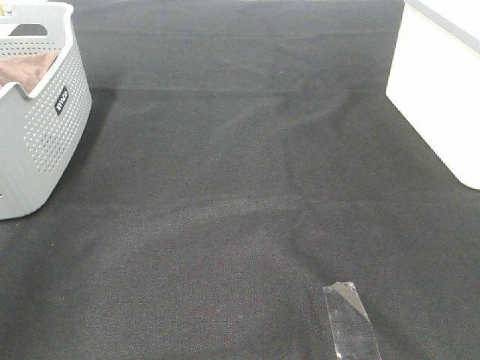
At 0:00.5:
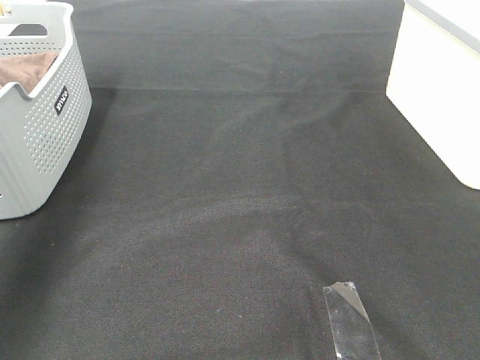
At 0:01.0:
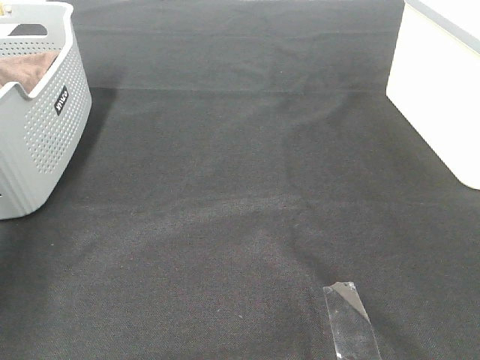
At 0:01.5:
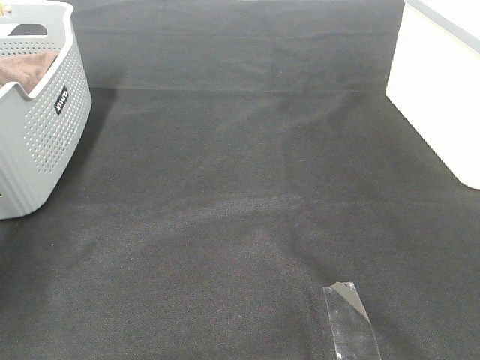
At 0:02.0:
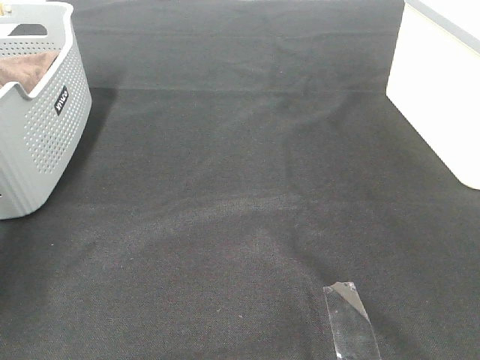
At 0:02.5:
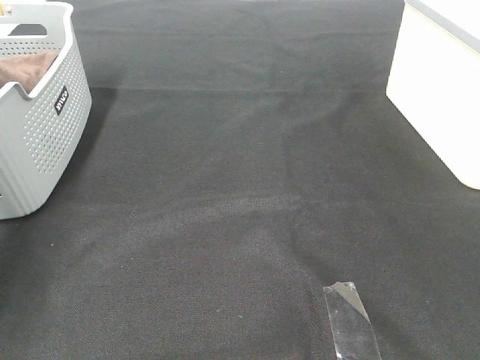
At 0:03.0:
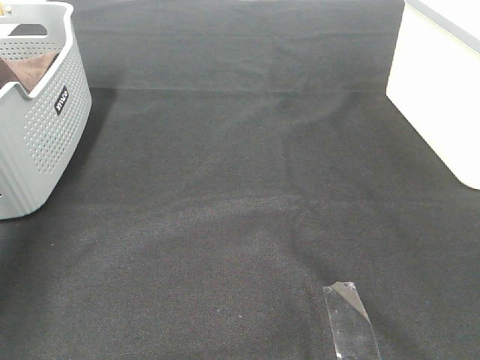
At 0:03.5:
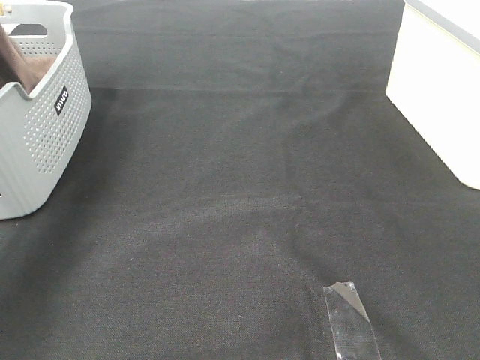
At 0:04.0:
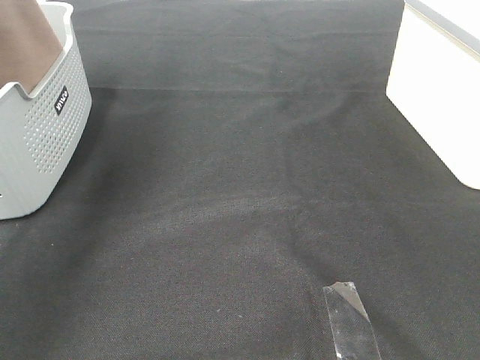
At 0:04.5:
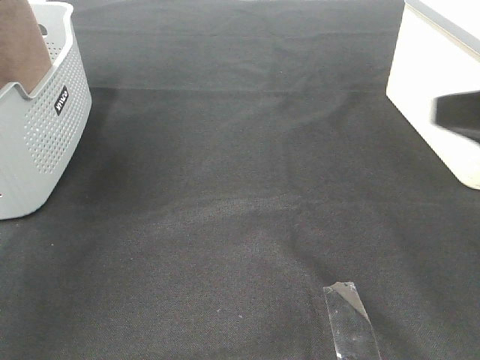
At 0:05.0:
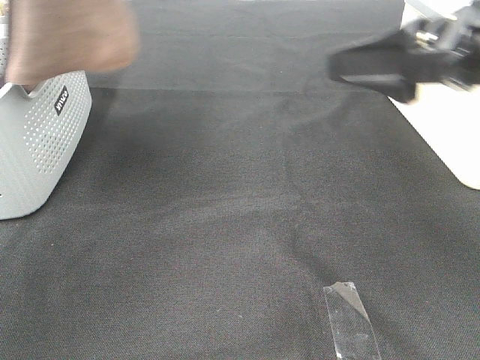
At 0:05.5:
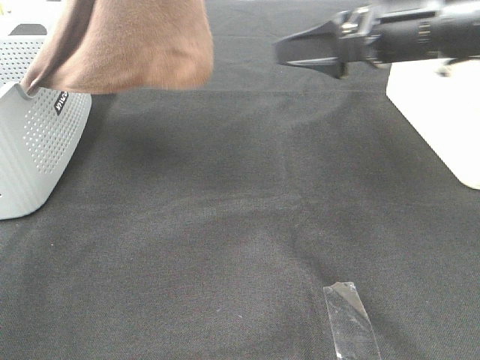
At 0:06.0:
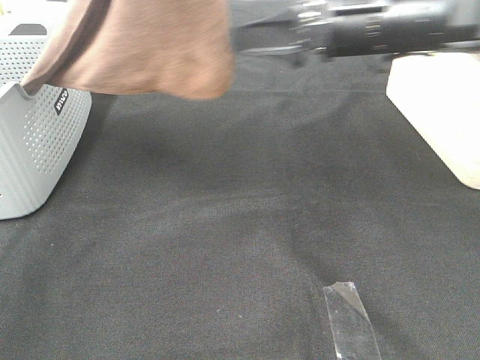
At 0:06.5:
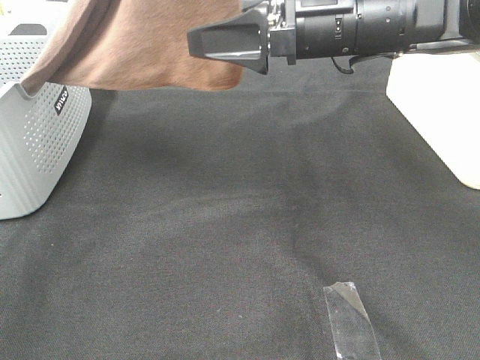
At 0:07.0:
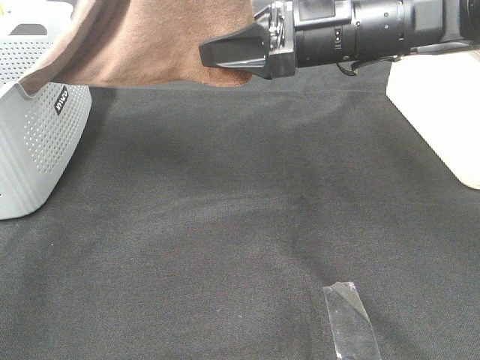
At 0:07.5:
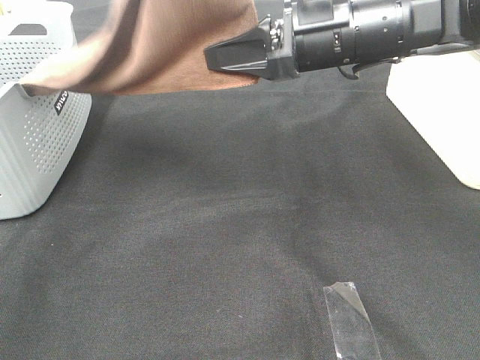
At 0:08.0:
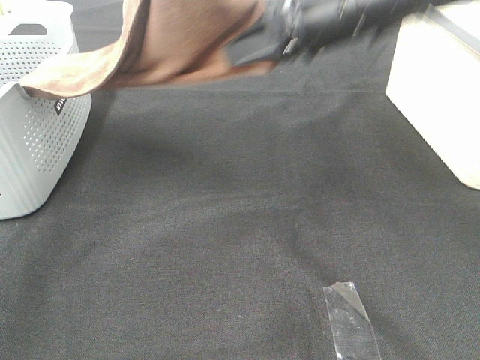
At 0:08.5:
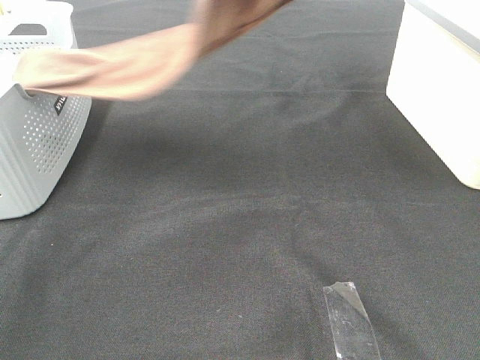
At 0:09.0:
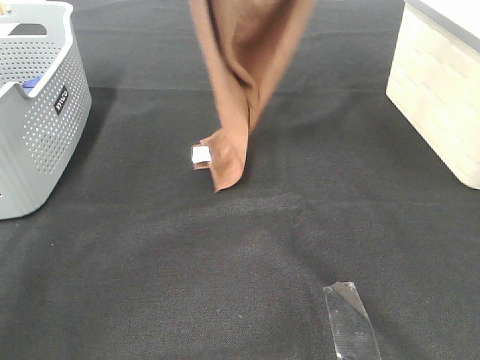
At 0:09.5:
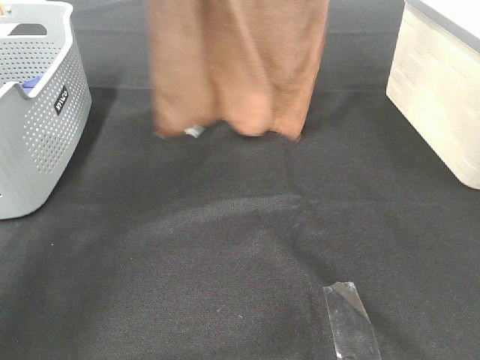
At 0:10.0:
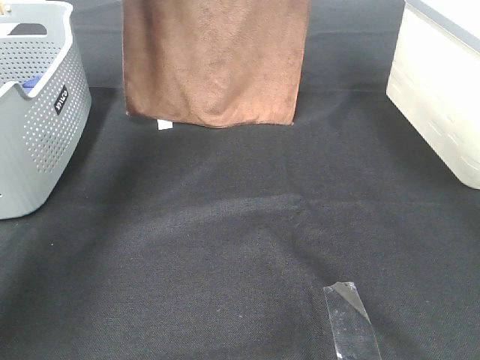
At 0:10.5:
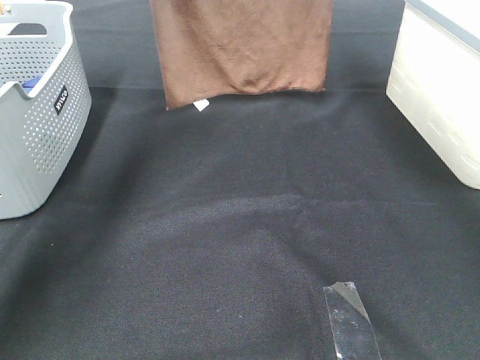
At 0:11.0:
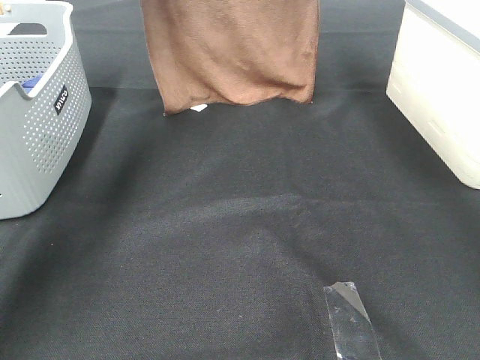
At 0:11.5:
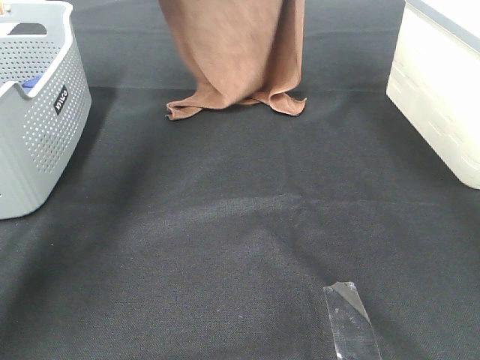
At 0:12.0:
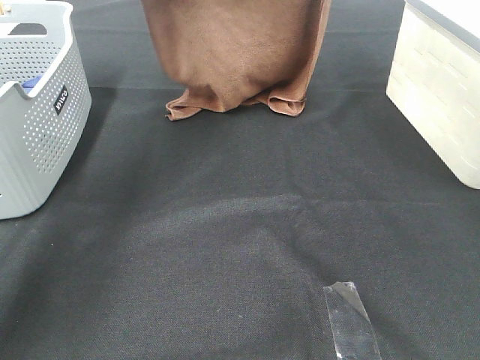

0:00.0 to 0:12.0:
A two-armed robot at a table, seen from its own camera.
Task of the whole recording: Remove the towel and place it.
Step, 0:04.0 to 0:07.5: Right hand: grab a corner of the brown towel and straighten it.
0:00.0 to 0:02.0: The left gripper moves forward and downward, roughly 40 cm, and closes up.
0:02.0 to 0:04.0: The left gripper is displaced upward and to the right by roughly 30 cm.
0:04.0 to 0:06.0: The right gripper shifts about 35 cm forward and to the left, while the left gripper travels to the right by some 15 cm.
0:06.0 to 0:08.0: The right gripper heads upward, covering some 5 cm, and closes its fingers.
0:08.0 to 0:10.0: The left gripper travels forward by roughly 20 cm, while the right gripper travels upward and forward by roughly 20 cm.
0:10.0 to 0:12.0: The right gripper changes place by approximately 5 cm.

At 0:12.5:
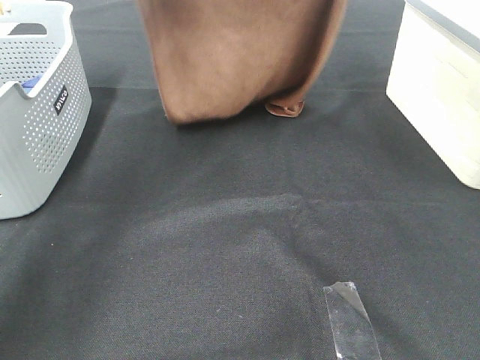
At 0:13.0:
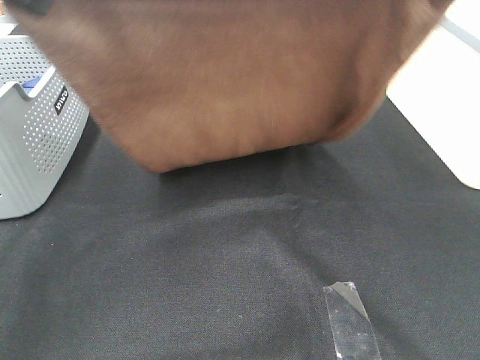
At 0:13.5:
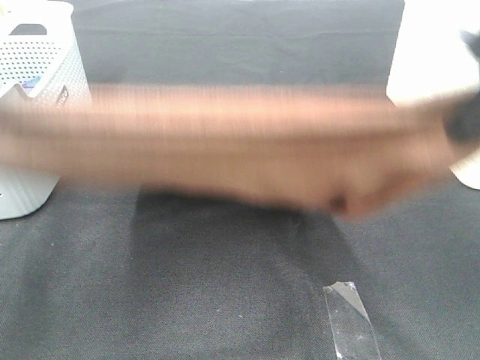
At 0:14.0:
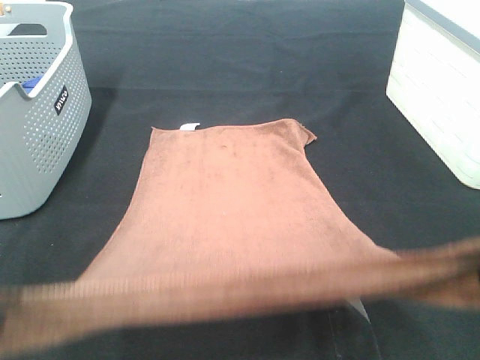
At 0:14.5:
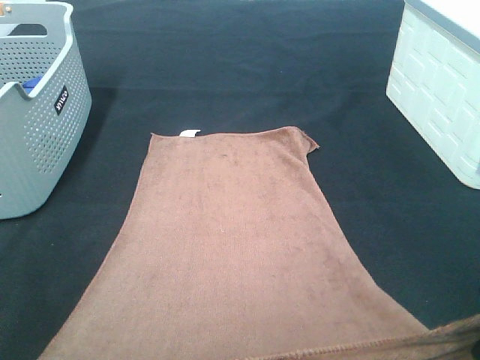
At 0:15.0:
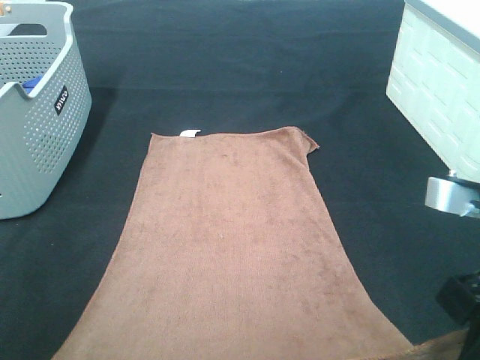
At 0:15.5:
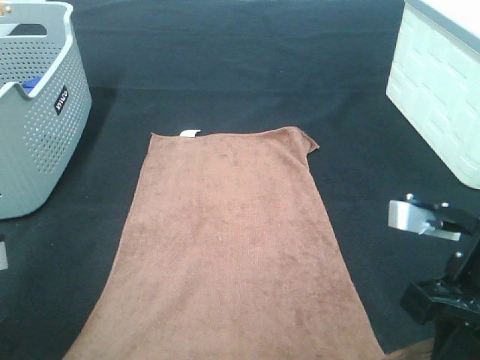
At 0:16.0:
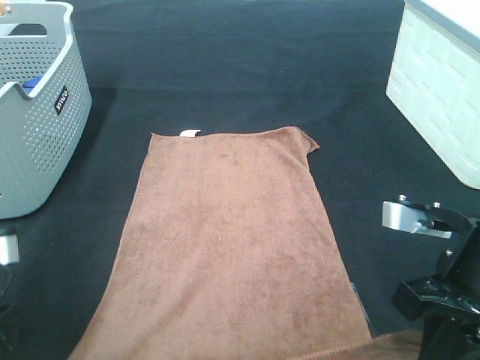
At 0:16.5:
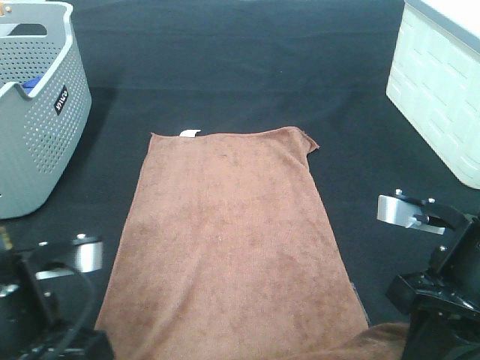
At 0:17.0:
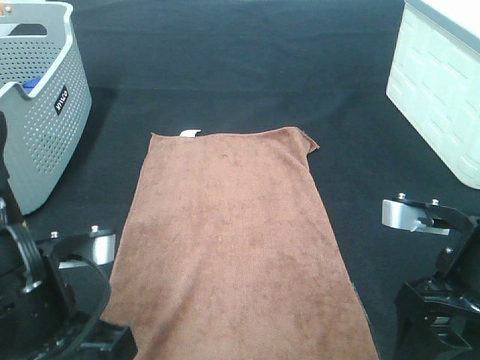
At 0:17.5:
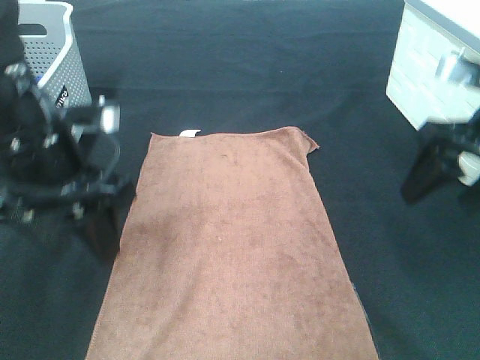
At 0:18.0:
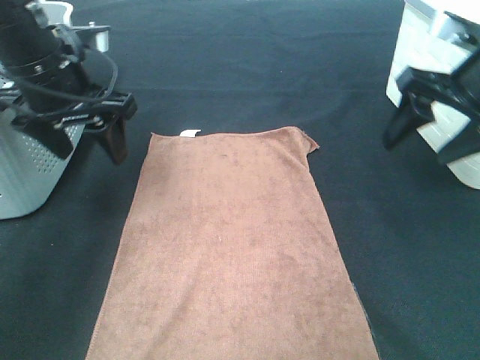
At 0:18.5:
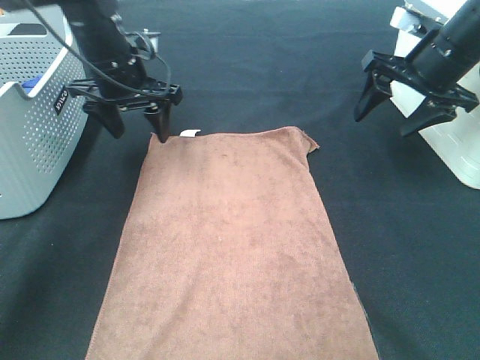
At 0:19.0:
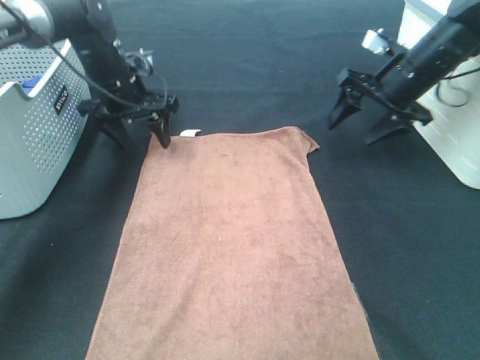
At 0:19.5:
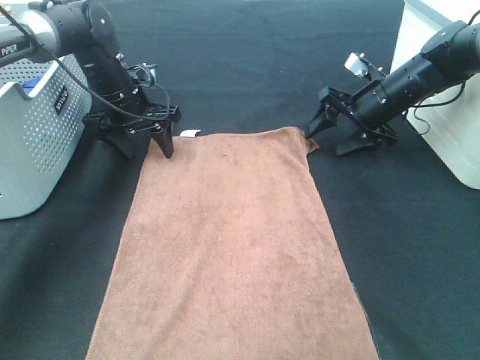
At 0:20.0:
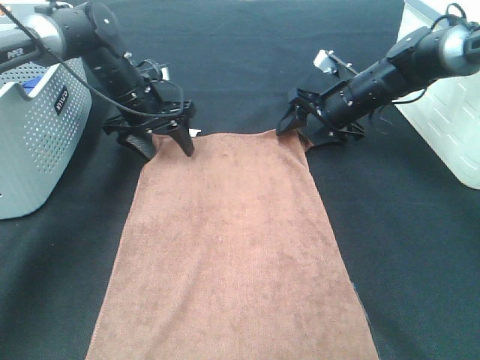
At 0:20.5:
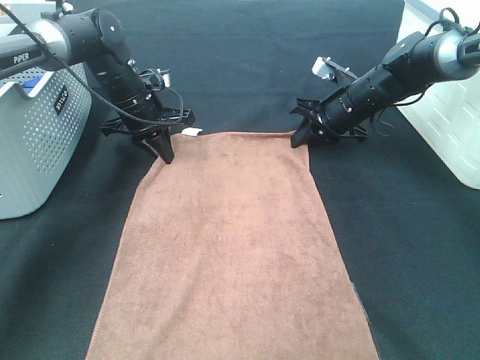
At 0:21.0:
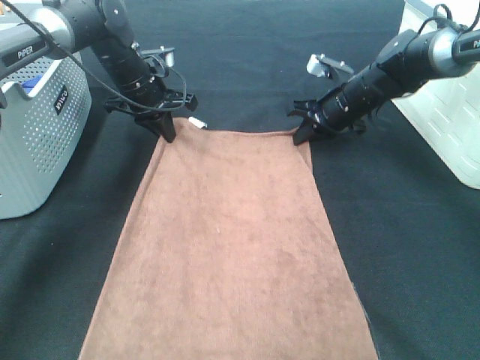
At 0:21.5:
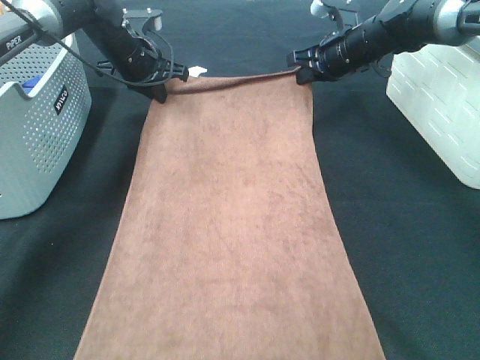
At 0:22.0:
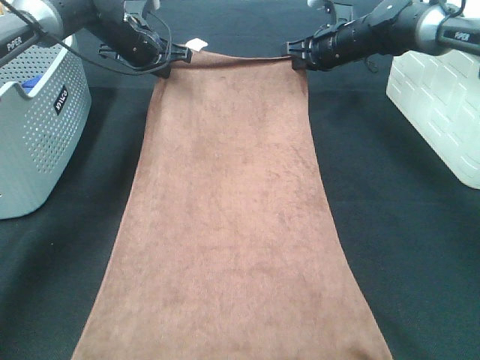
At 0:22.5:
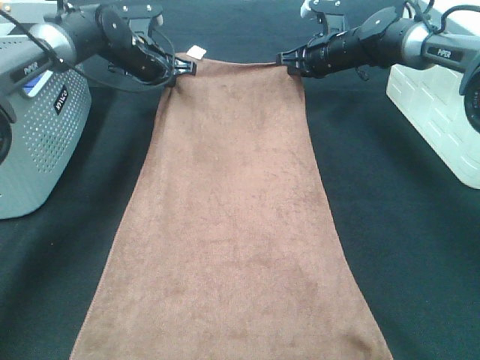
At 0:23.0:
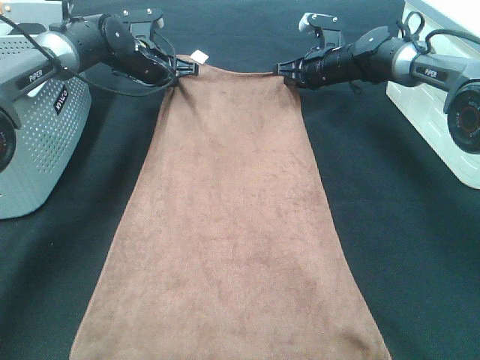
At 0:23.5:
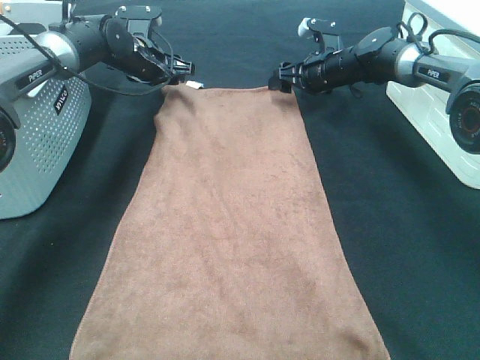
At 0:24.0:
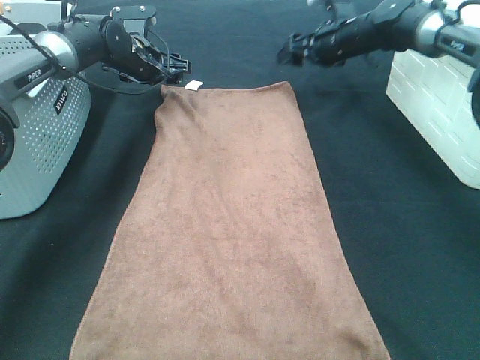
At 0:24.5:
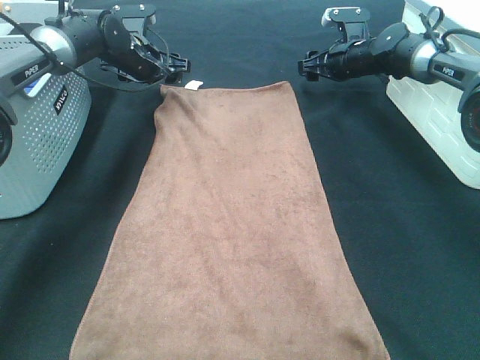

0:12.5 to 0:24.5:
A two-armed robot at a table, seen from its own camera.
Task of the whole recording: Remove the towel and place it.
Step, 0:13.0 to 0:18.0: Left hand:adjust the brown towel.
Step, 0:13.0 to 0:18.0: Right hand:adjust the brown towel.
0:12.5 to 0:14.5: The two grippers go approximately 35 cm backward and downward.
0:14.5 to 0:16.5: The left gripper moves to the right, downward and forward, approximately 10 cm. Meanwhile the right gripper moves downward and forward, about 10 cm.
0:16.5 to 0:18.5: Both grippers move forward, approximately 30 cm. The right gripper opens. Meanwhile the left gripper opens up.
0:18.5 to 0:20.5: The right gripper shifts roughly 15 cm downward, forward and to the left, and closes up; the left gripper is displaced downward by about 10 cm, and closes.
0:20.5 to 0:22.5: Both grippers move forward, roughly 10 cm.
0:22.5 to 0:24.5: The right gripper moves roughly 5 cm, and opens. The left gripper opens up.

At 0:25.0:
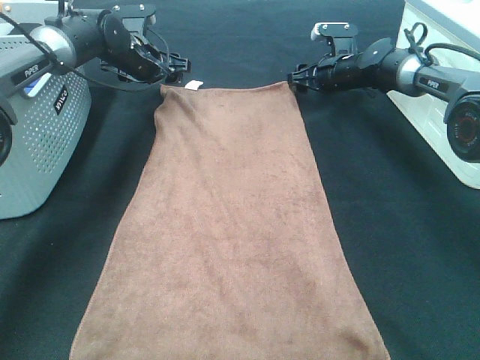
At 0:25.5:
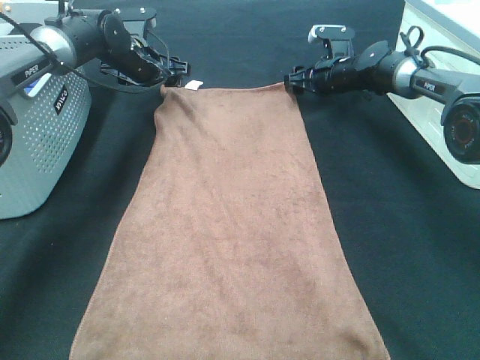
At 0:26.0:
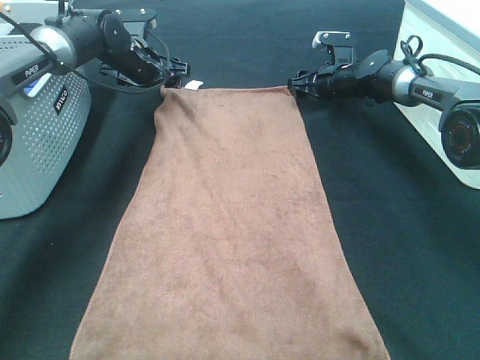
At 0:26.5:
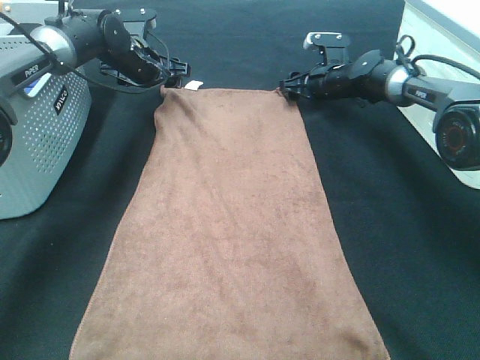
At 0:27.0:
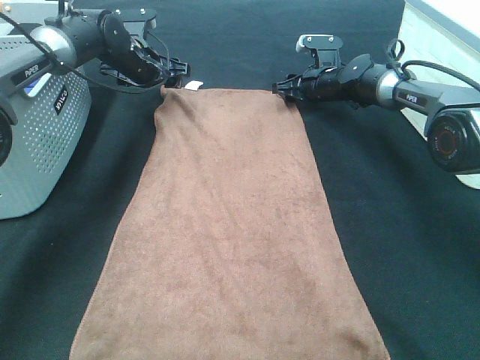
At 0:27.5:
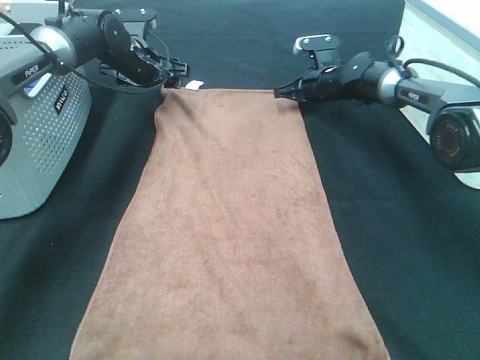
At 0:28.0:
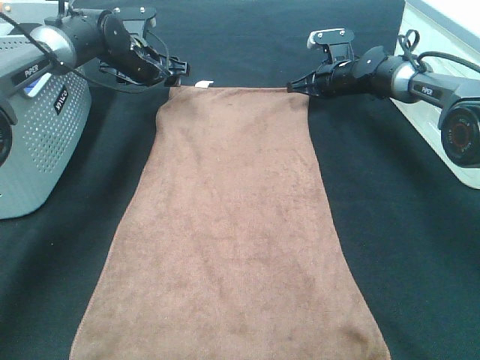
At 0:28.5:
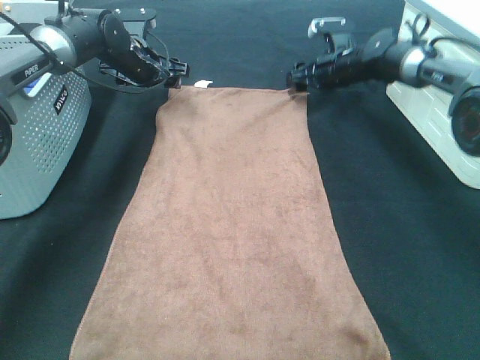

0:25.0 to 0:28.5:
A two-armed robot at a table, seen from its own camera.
Task of the whole recording: Remove the towel and place it.
0:25.0 to 0:27.0: The grippers make only small movements.
0:27.0 to 0:28.5: The right gripper shifts about 5 cm upward, and closes, then reopens.
